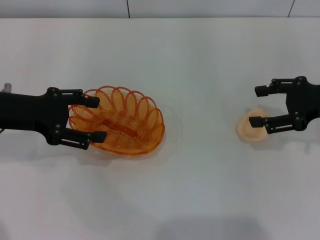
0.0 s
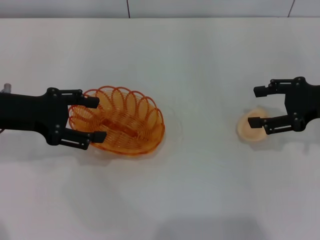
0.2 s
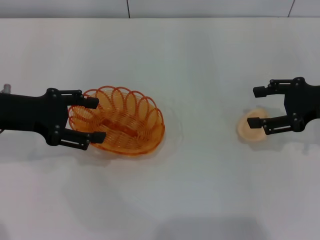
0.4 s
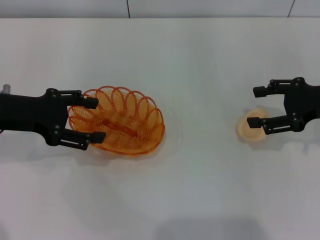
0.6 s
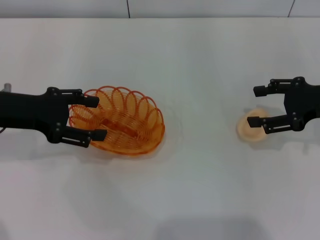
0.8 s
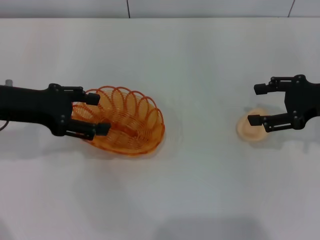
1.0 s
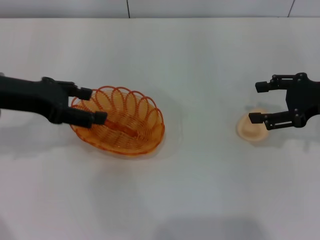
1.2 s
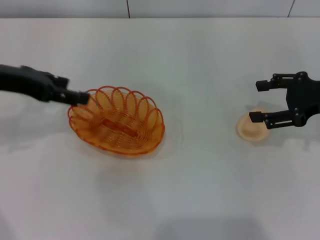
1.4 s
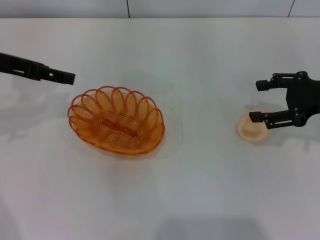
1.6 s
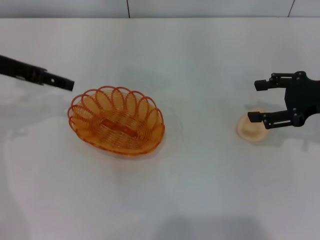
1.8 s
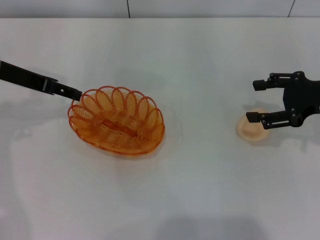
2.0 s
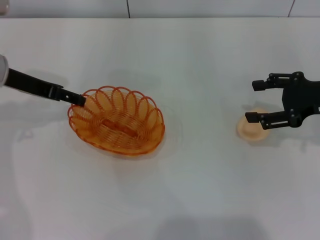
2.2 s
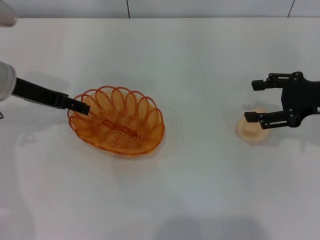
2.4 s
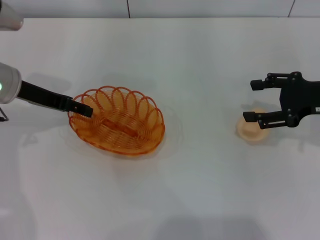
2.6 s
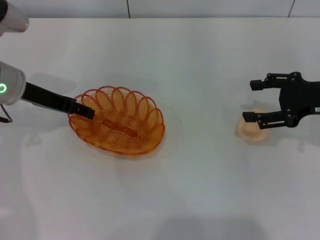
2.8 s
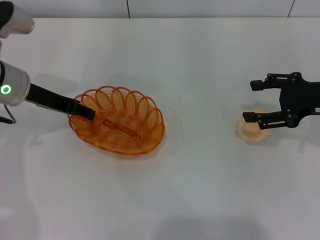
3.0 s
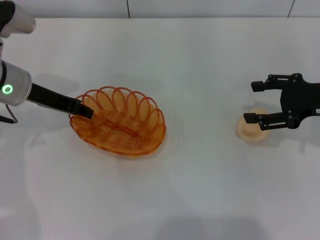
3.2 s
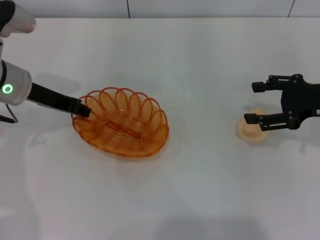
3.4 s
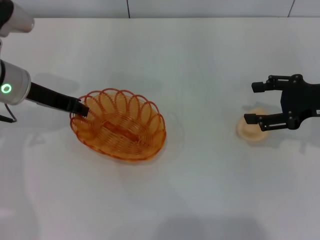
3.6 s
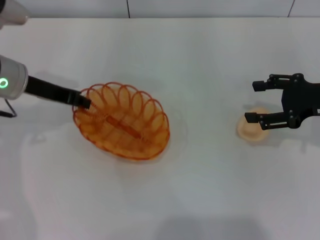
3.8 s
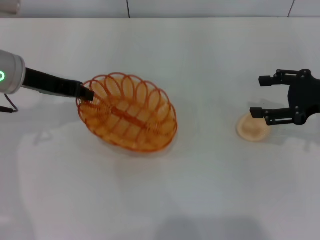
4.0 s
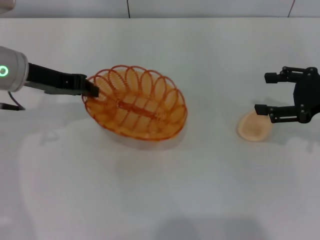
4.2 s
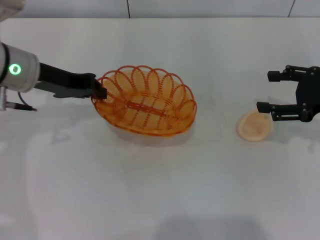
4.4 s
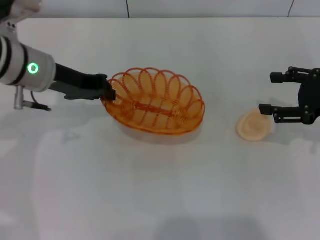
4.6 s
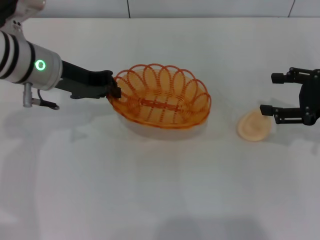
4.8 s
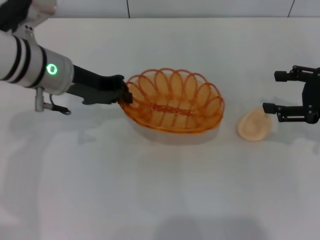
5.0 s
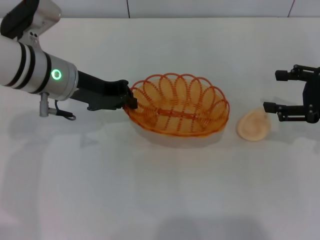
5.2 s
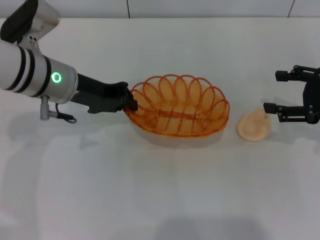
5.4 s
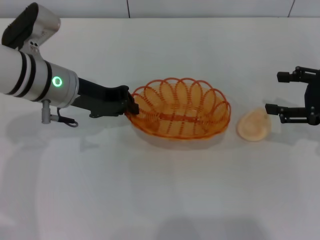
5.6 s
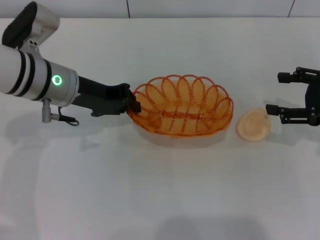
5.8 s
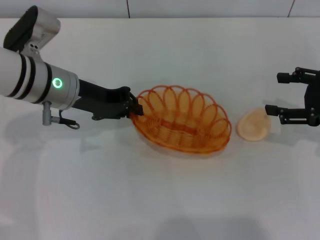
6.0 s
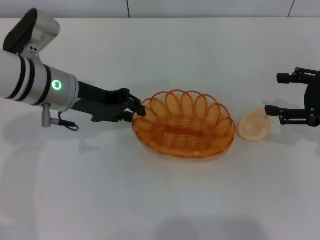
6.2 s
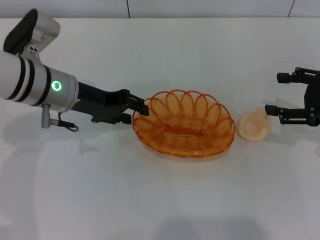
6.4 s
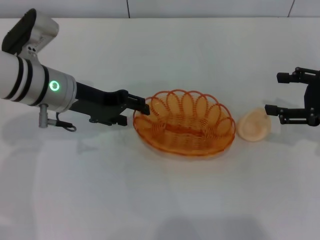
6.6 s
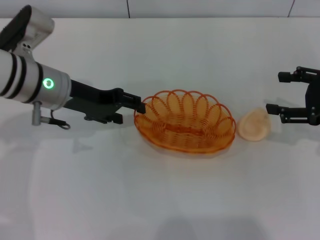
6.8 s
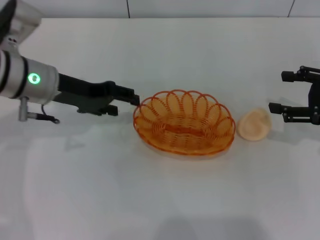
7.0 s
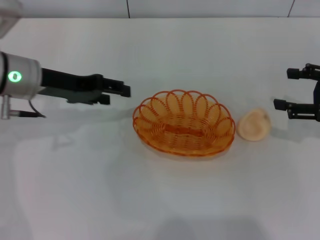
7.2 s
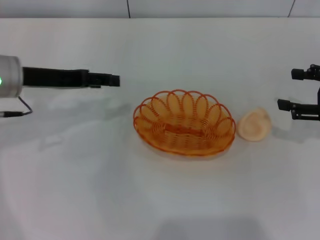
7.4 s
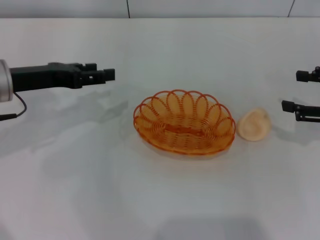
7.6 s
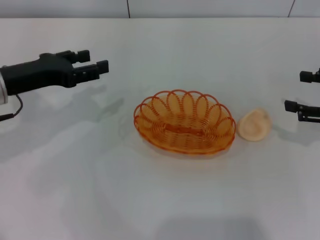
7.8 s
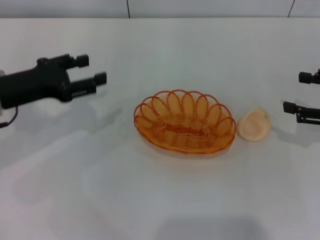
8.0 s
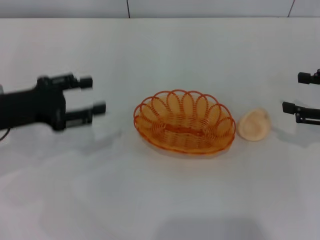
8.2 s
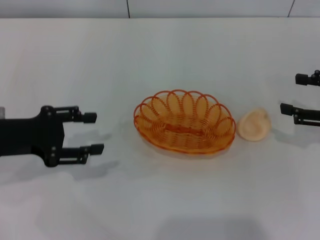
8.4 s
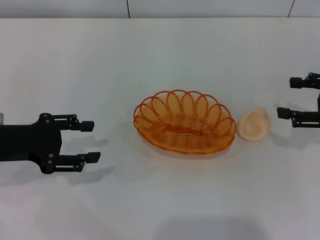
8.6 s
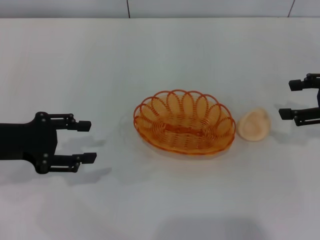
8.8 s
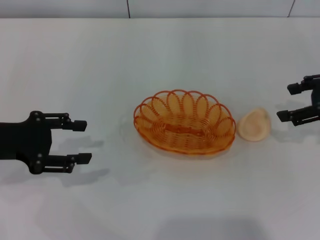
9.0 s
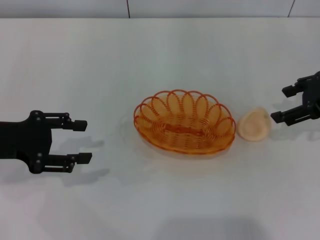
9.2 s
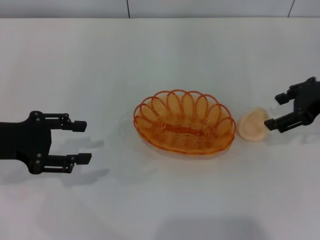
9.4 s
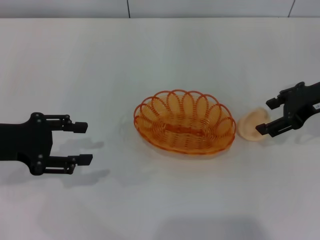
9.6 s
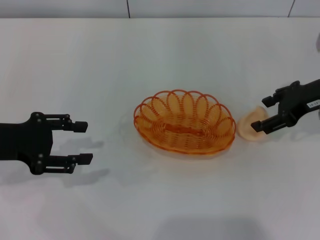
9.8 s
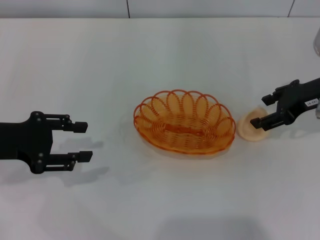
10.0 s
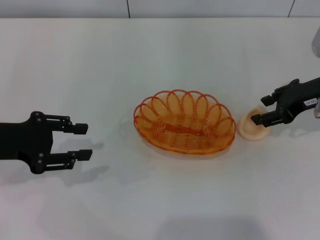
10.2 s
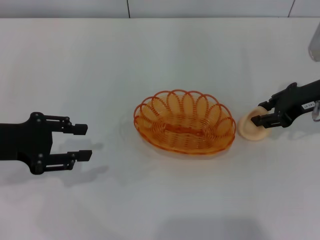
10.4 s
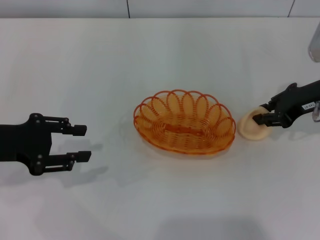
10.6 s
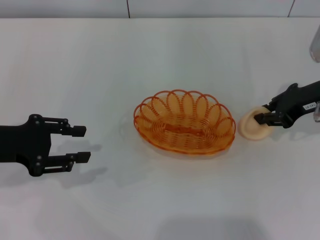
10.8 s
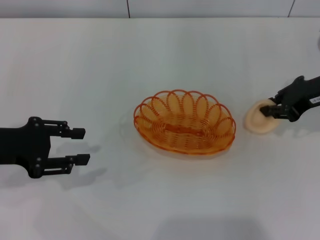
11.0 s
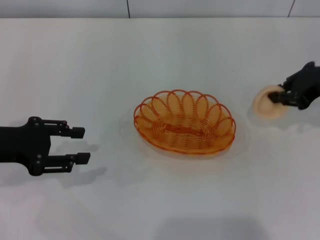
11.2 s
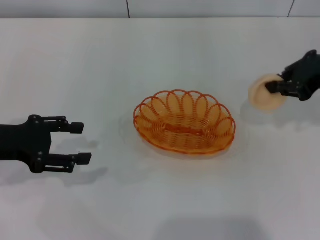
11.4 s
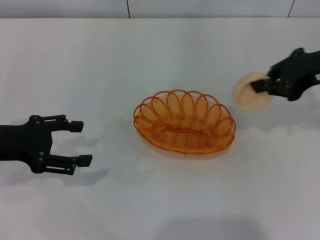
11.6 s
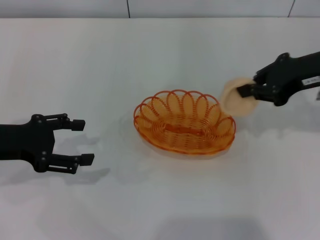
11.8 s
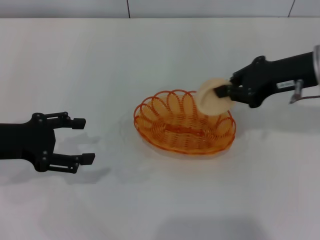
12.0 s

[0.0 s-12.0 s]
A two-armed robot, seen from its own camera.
Step, 0.0 to 4.2 s: Pick up the basket with the left gripper.
Step, 4.4 to 6.8 s: Place the basket in the center of view with the left gripper.
Step, 7.0 to 11.2 s: Pick up the egg yolk pastry with the right gripper.
0.0 to 1.6 s: The left gripper shifts approximately 5 cm upward.
1.6 to 3.0 s: The left gripper travels downward by approximately 5 cm.
3.0 to 4.4 s: The left gripper closes its fingers.
4.4 to 6.0 s: The left gripper moves approximately 5 cm.
6.0 to 7.6 s: The left gripper moves to the left, some 10 cm, and opens up.
7.6 to 9.0 s: The left gripper is displaced backward by roughly 5 cm, while the right gripper ends up about 5 cm from where it was.
9.0 to 10.4 s: The right gripper moves to the left, approximately 5 cm.
10.4 to 12.0 s: The right gripper changes place by about 5 cm, and closes its fingers. The left gripper opens its fingers.

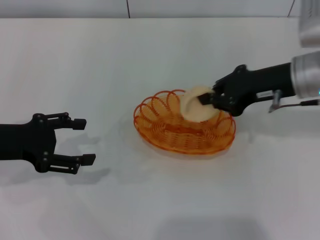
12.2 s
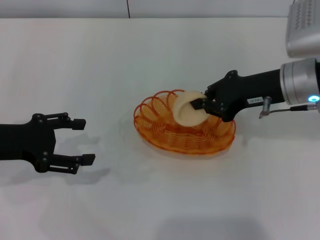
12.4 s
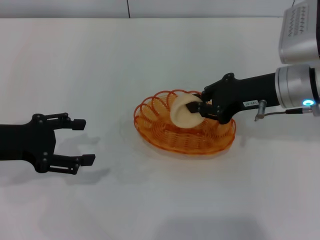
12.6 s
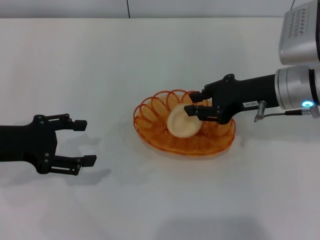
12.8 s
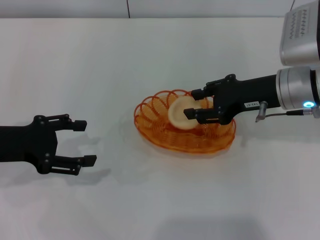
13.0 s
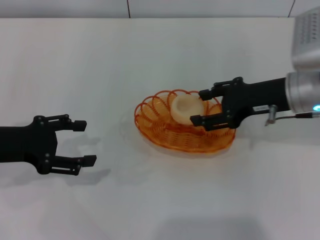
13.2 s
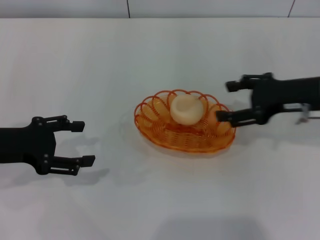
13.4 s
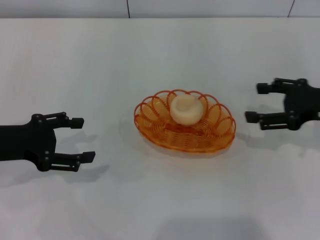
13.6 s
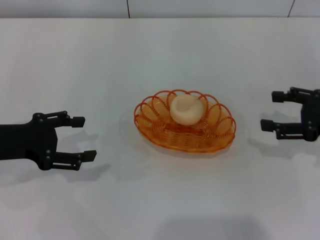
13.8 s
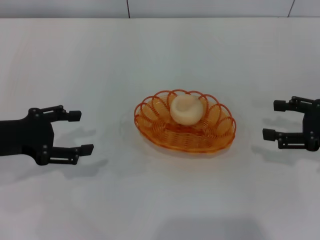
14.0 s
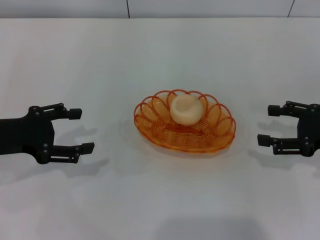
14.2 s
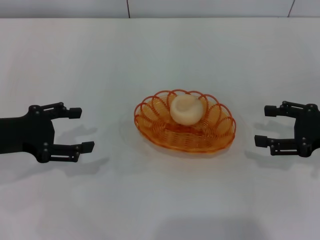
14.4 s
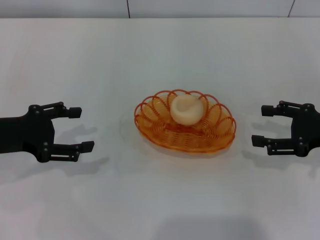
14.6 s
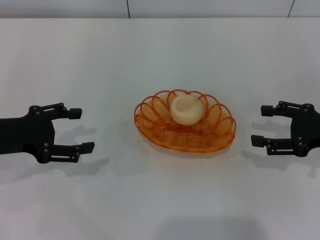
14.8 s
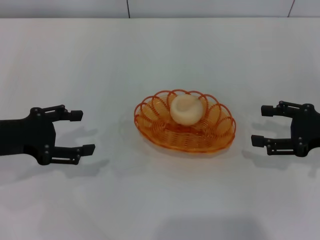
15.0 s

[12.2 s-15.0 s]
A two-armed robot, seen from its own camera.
Step, 12.2 to 13.6 s: Place the egg yolk pastry into the basket with the right gripper.
12.2 to 13.6 s: The right gripper travels to the right by roughly 10 cm, and opens up.
13.6 to 15.0 s: The grippers stay close to where they were, moving slightly.

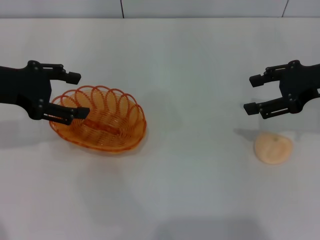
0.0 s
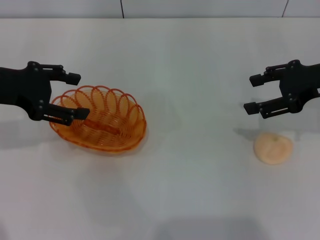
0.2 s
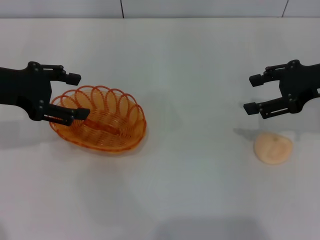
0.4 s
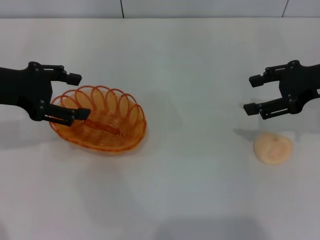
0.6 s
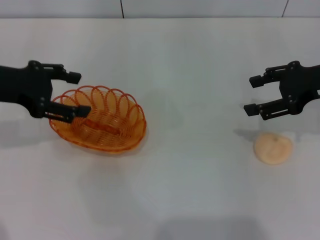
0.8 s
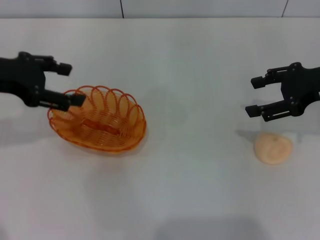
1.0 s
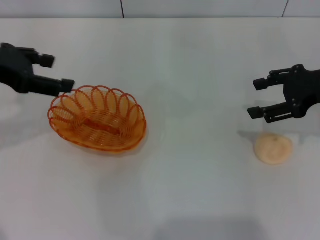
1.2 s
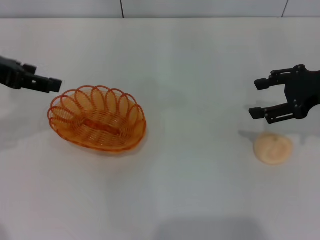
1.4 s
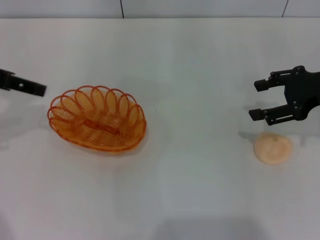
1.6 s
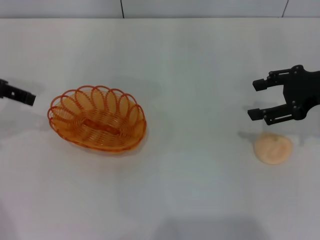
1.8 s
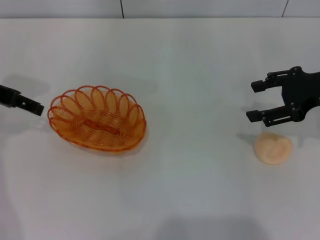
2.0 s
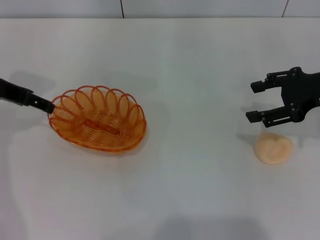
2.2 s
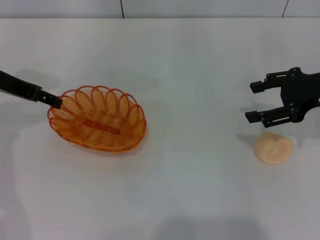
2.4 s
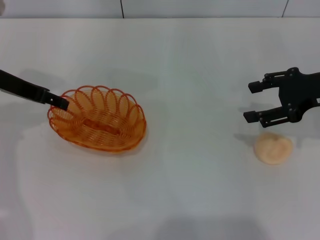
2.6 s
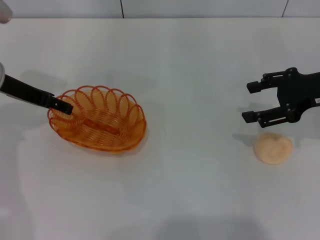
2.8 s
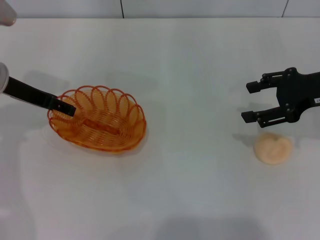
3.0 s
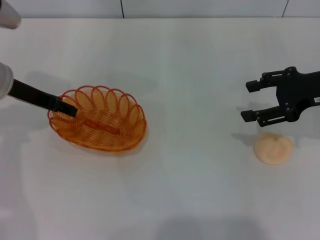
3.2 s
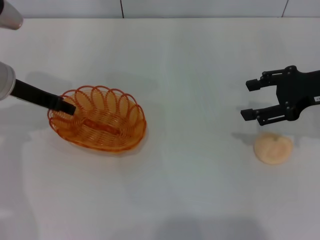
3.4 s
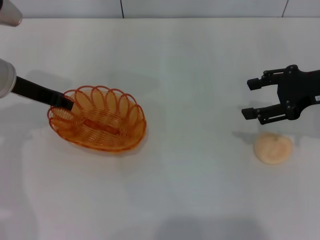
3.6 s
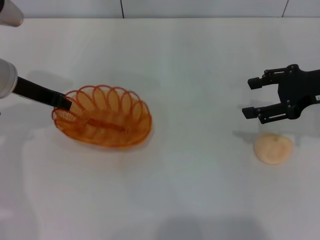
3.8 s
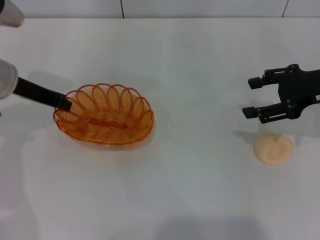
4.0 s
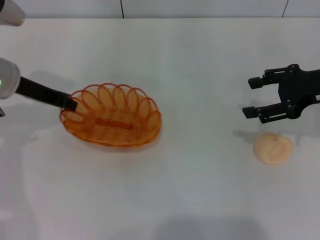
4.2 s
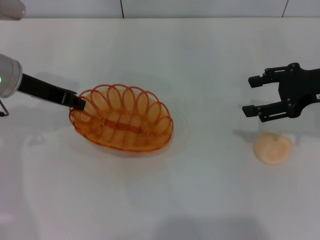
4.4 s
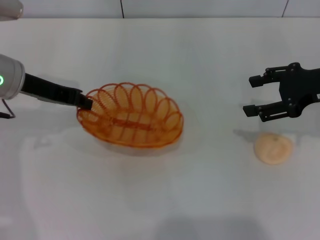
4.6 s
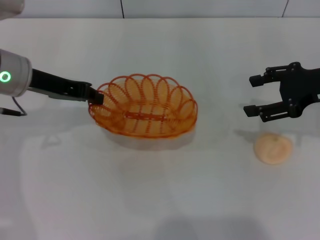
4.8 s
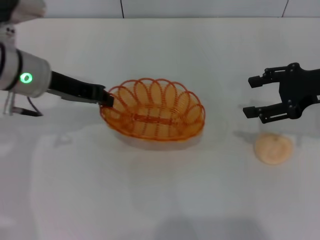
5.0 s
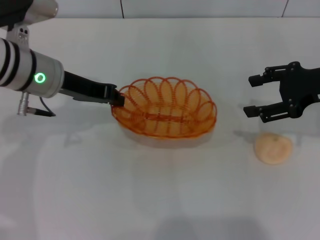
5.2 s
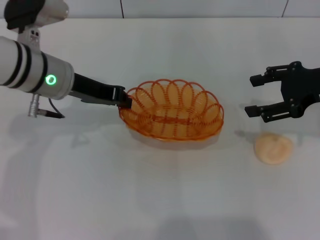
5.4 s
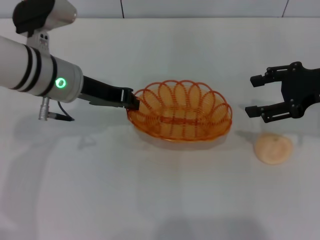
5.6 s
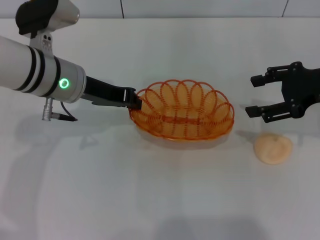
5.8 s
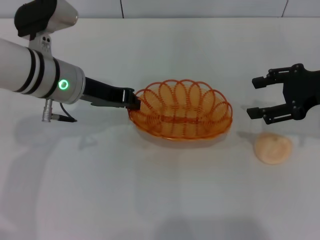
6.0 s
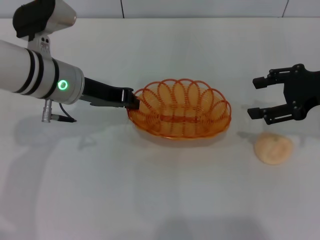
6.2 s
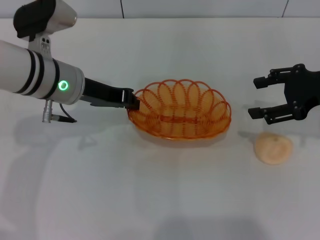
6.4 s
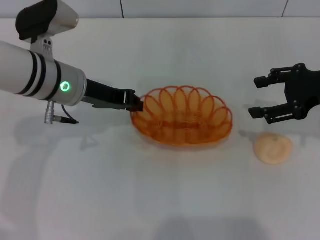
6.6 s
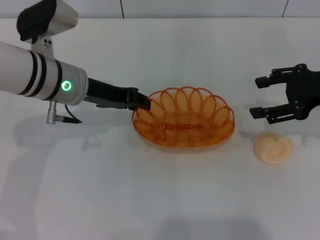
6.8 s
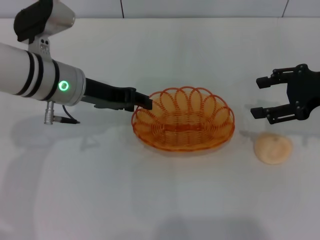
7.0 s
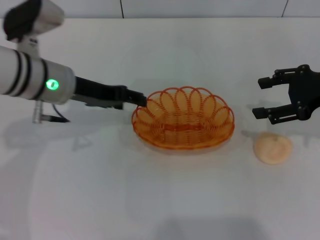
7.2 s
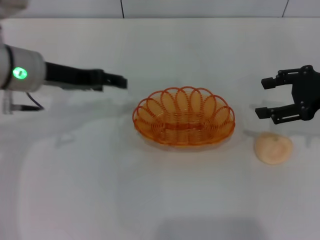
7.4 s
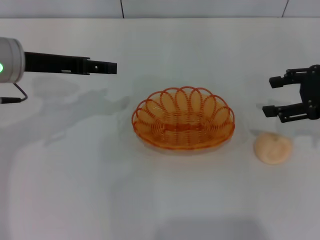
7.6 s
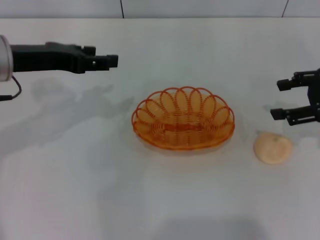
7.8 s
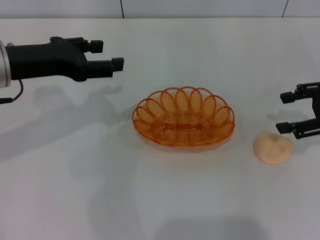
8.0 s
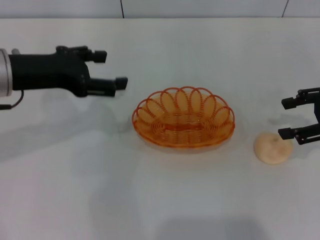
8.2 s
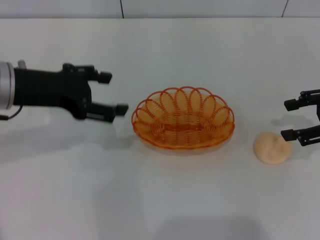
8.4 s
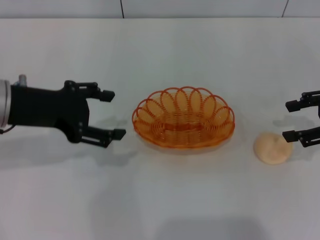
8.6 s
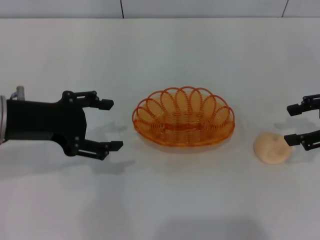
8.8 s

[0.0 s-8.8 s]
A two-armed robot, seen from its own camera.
Step, 0.0 to 5.0 s: Pick up the basket with the left gripper.
Step, 5.2 to 8.0 s: Place the basket in the center of view with the left gripper.
0.0 to 1.4 s: The left gripper travels upward by approximately 5 cm.
1.4 to 3.0 s: The left gripper moves downward, about 10 cm.
3.0 to 4.4 s: The left gripper closes.
4.4 to 5.8 s: The left gripper heads to the right, covering roughly 10 cm.
5.8 to 7.4 s: The left gripper ends up approximately 5 cm from where it was, and opens its fingers.
7.4 to 8.8 s: The left gripper goes approximately 5 cm backward.
